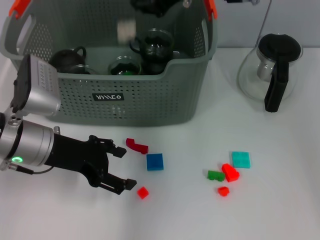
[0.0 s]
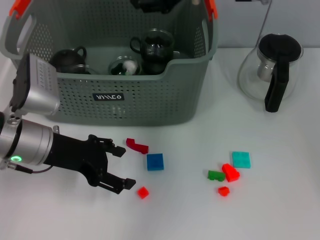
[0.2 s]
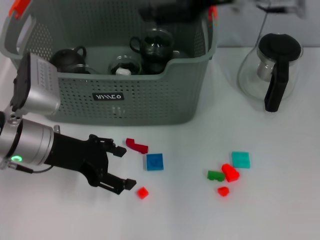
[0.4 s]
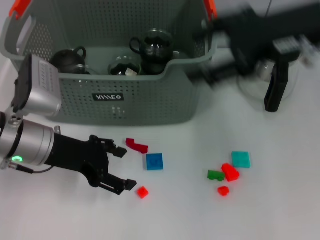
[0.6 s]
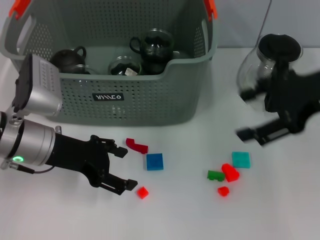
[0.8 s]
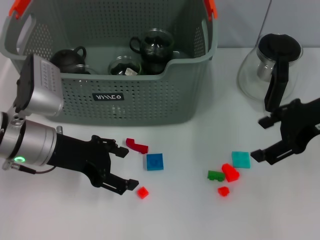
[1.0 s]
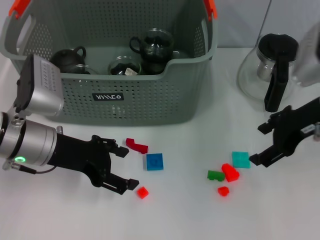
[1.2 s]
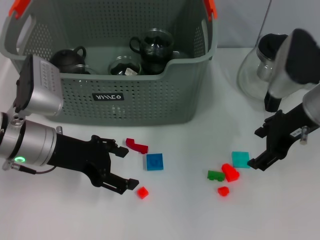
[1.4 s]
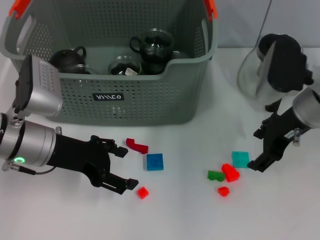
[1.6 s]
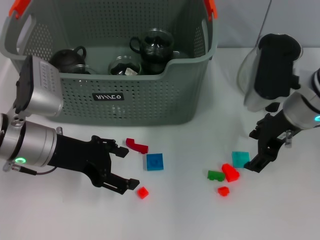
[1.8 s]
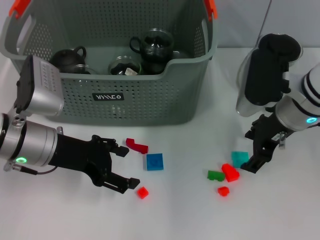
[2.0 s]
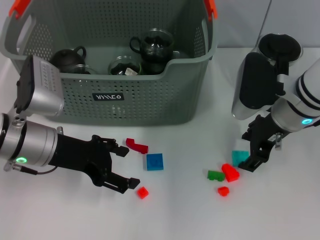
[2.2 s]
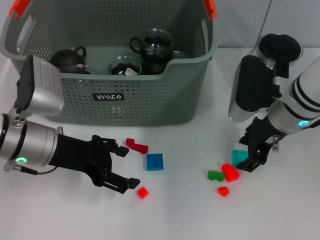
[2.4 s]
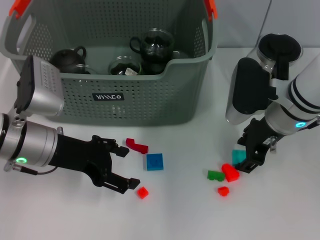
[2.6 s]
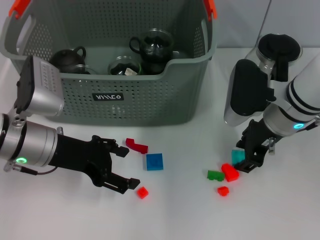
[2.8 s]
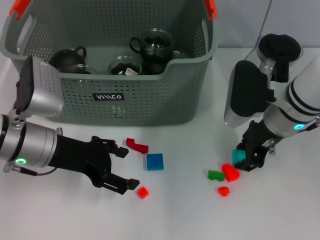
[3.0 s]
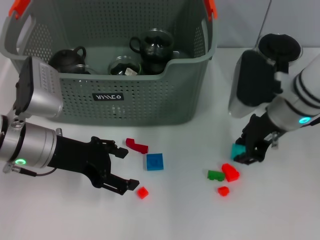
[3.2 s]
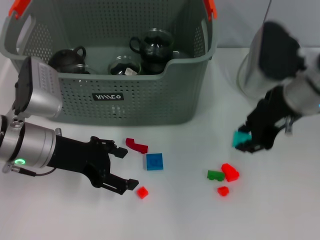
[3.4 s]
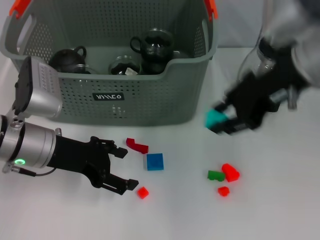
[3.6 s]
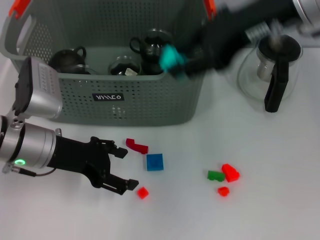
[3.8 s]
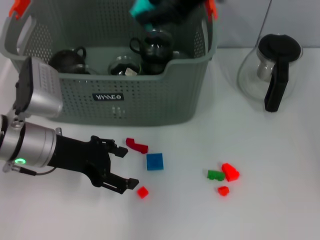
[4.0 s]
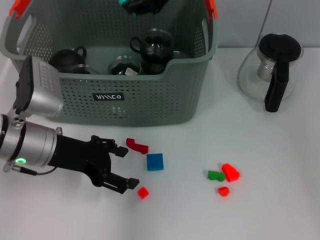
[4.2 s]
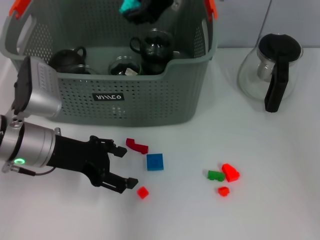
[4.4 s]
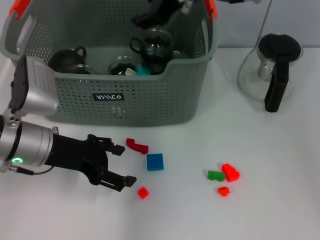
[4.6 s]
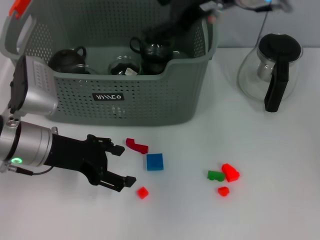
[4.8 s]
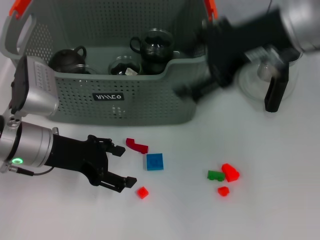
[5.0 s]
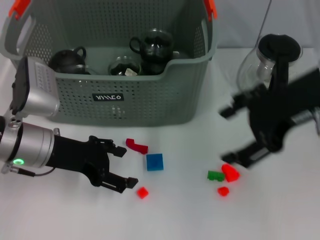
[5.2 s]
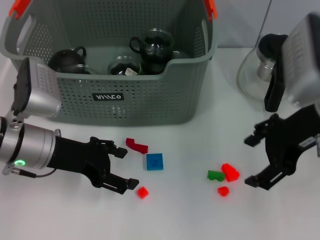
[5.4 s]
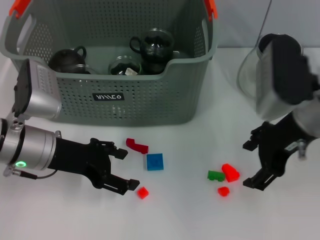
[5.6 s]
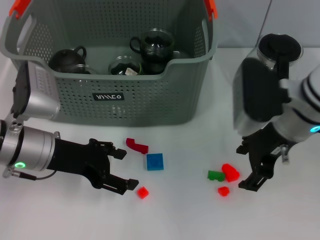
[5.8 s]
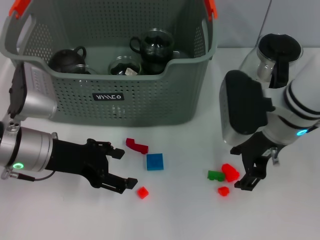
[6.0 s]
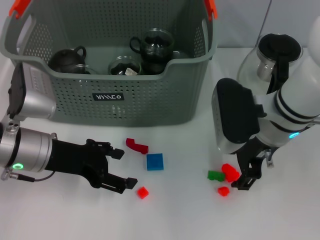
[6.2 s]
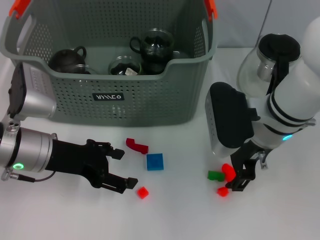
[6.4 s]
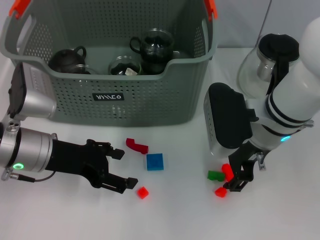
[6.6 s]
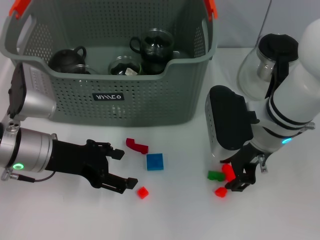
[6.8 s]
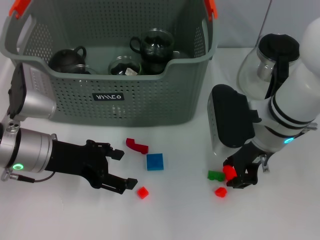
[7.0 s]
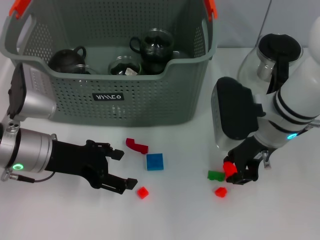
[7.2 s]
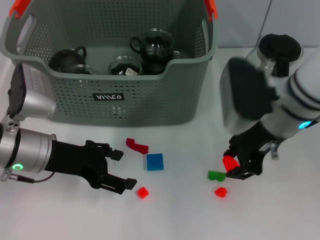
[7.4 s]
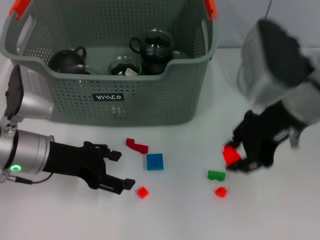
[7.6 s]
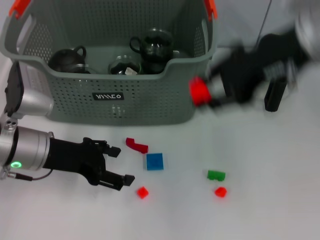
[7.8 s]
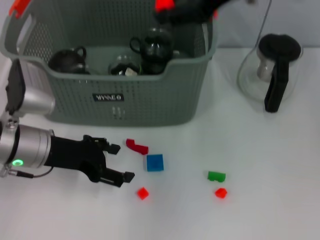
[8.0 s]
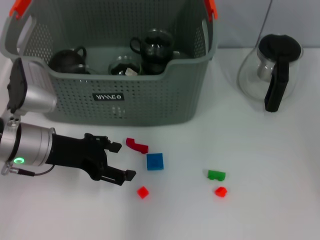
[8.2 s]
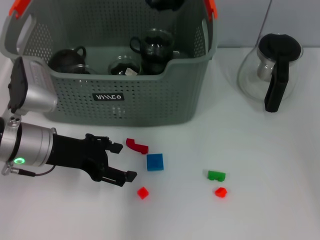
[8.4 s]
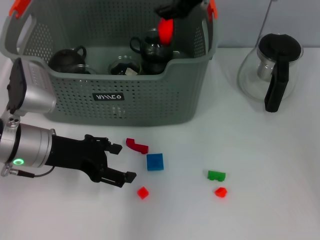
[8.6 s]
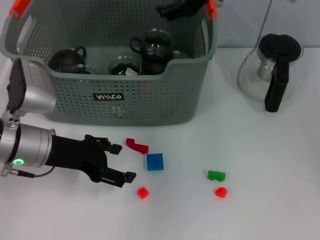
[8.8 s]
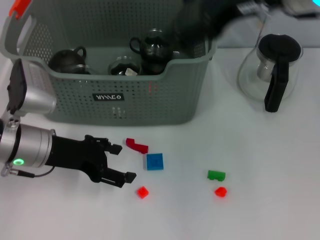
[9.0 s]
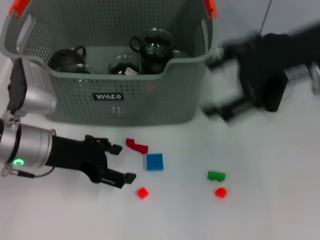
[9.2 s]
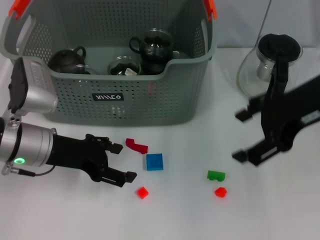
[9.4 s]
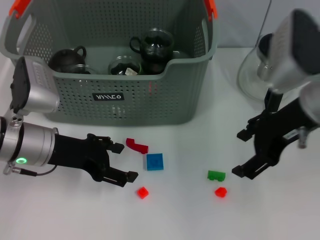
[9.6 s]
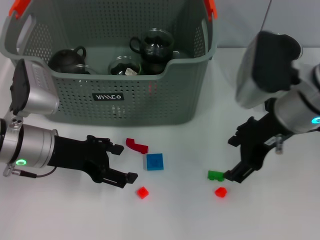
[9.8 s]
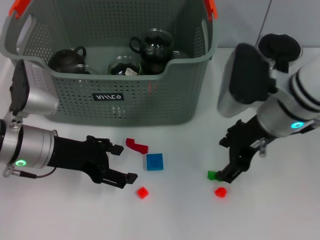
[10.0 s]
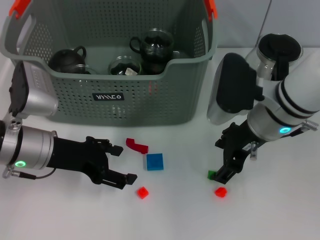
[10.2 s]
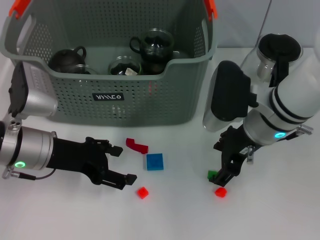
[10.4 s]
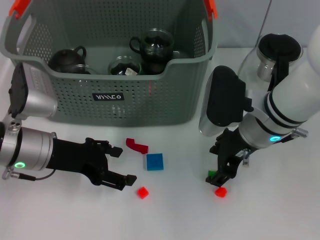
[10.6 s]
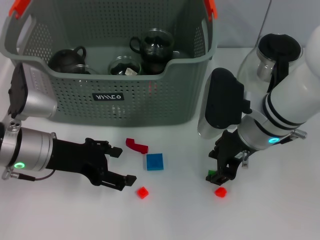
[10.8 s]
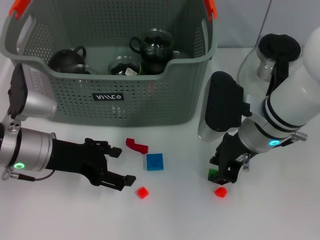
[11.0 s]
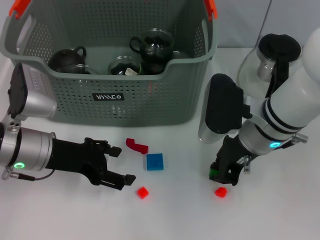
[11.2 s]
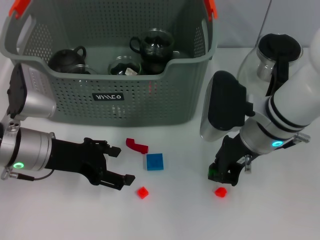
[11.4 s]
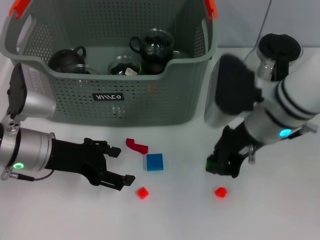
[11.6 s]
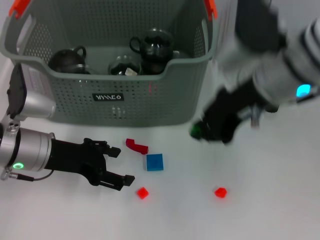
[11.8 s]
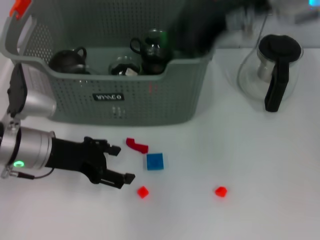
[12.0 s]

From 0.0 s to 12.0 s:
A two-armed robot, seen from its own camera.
Task of the whole recording: pick up the teacup on the table and place it into the storage bin, pick up the block on the table and place it into the storage bin.
Step, from 0.2 s to 2.8 s: Grasp the light blue block with right gripper.
Step, from 3.0 s to 4.8 s: Place the light blue block in the storage box with right gripper.
Step, from 5.0 s to 6.6 s: Grasp the orange block with right gripper.
Step, from 7.0 s to 8.4 s: Place the orange block in the storage box with right gripper.
Step, from 8.6 s to 11.2 s: Grasp the green block with right gripper.
From 0.0 s to 1.6 s: The right gripper is displaced downward, to the right and backward by some 20 cm, and opens up.
From 1.6 s to 3.0 s: The grippers stay close to where they were, moving slightly.
From 3.0 s to 4.4 s: The right gripper travels upward and to the left by roughly 20 cm.
From 4.4 s to 6.0 s: The right gripper travels downward, to the right and backward by about 20 cm, and opens its fingers.
From 6.0 s to 7.6 s: The right gripper travels upward by some 10 cm, and closes its fingers.
From 7.6 s to 9.0 s: The right gripper goes roughly 10 cm upward, travels forward and back again, some 10 cm each way, and opens up.
From 9.0 s to 10.4 s: The right gripper heads downward, covering about 15 cm.
From 10.4 s to 12.0 s: The right gripper travels upward by about 20 cm, and closes its fingers.

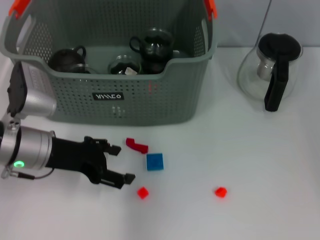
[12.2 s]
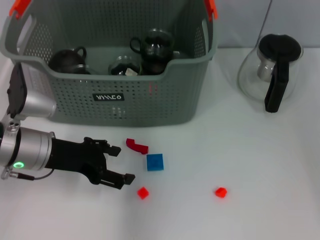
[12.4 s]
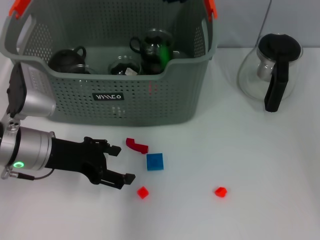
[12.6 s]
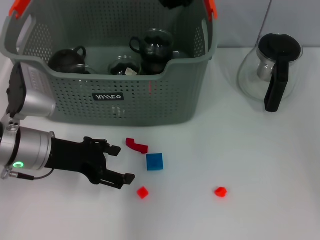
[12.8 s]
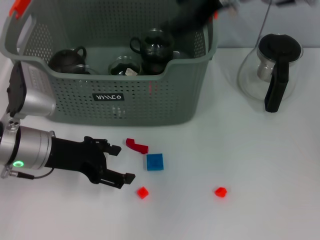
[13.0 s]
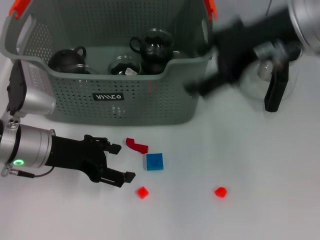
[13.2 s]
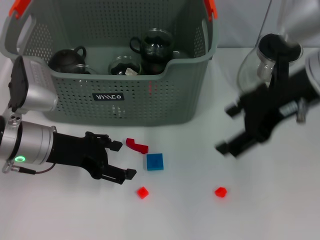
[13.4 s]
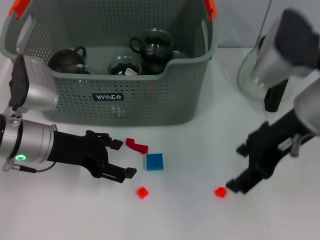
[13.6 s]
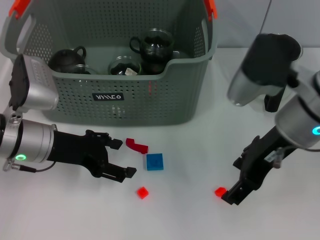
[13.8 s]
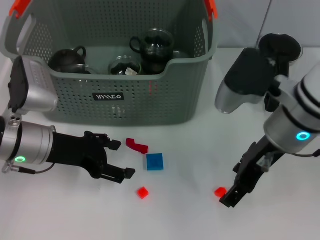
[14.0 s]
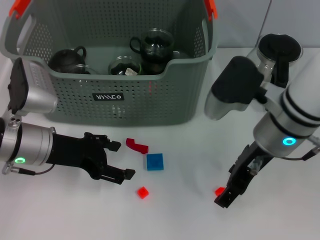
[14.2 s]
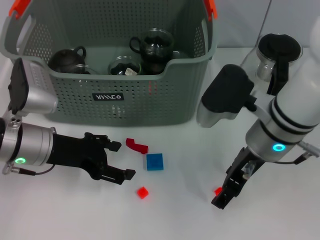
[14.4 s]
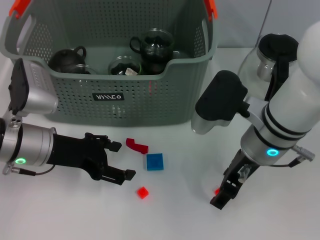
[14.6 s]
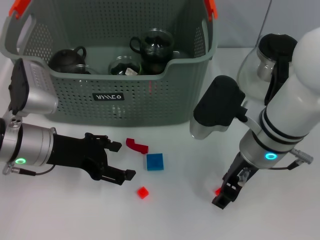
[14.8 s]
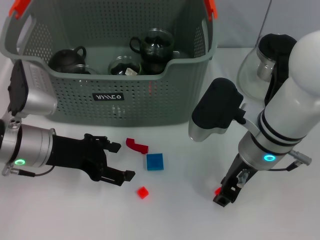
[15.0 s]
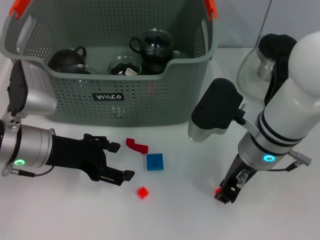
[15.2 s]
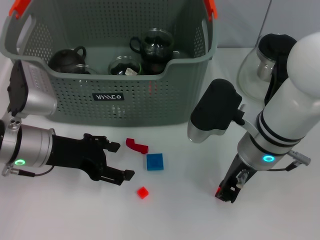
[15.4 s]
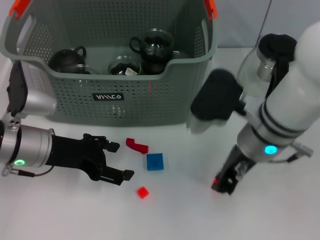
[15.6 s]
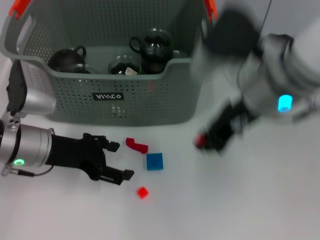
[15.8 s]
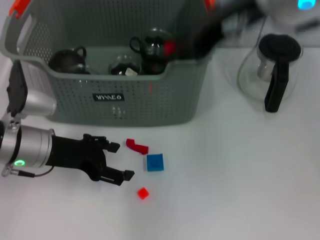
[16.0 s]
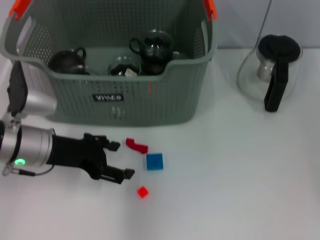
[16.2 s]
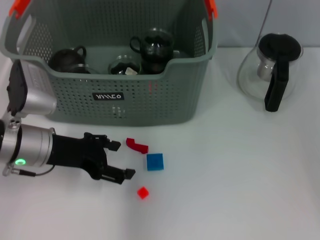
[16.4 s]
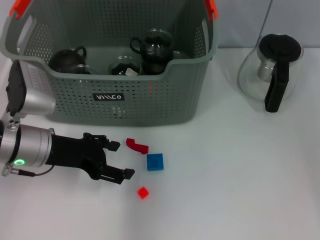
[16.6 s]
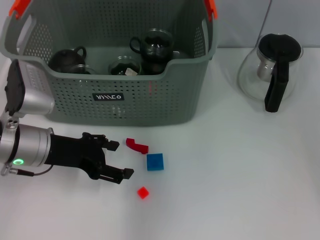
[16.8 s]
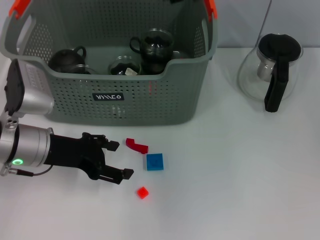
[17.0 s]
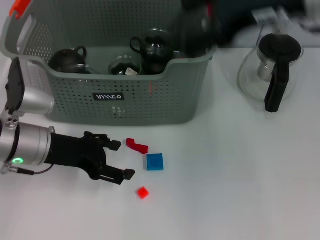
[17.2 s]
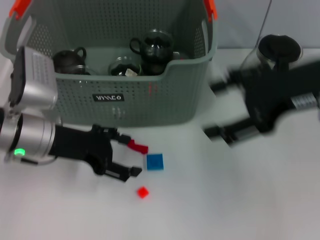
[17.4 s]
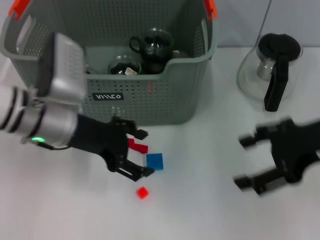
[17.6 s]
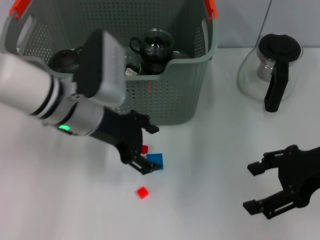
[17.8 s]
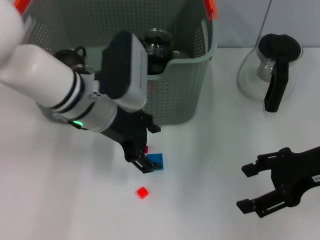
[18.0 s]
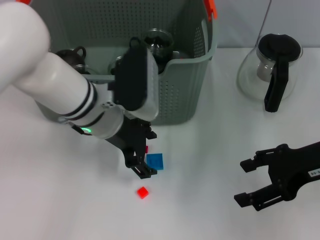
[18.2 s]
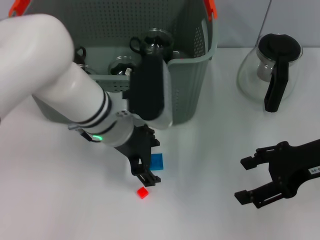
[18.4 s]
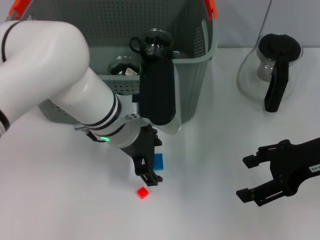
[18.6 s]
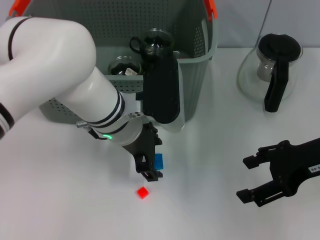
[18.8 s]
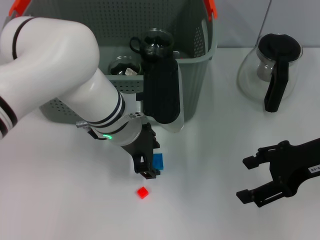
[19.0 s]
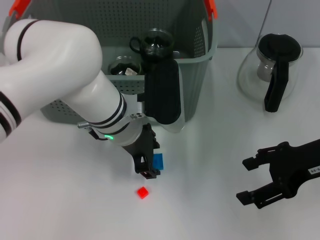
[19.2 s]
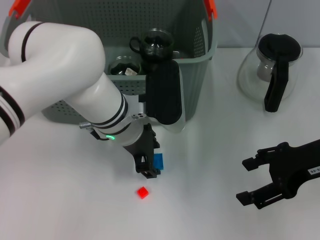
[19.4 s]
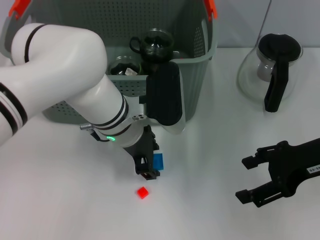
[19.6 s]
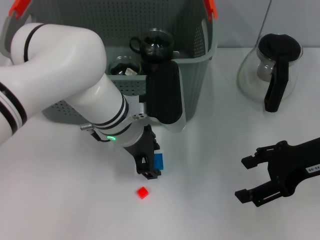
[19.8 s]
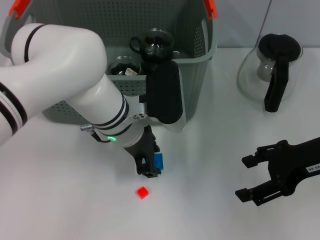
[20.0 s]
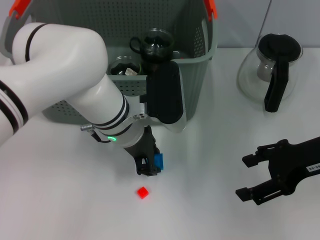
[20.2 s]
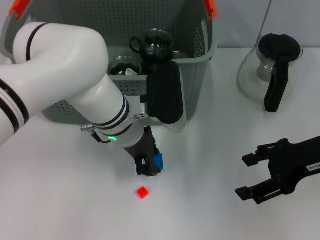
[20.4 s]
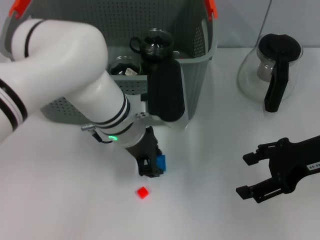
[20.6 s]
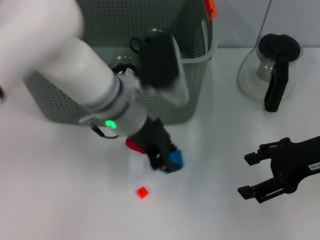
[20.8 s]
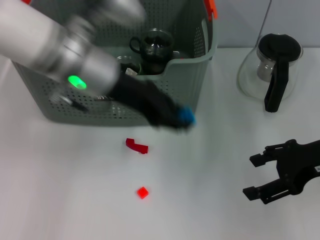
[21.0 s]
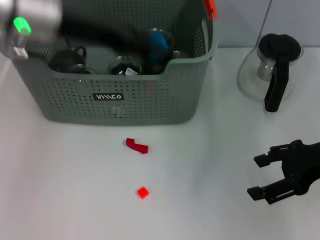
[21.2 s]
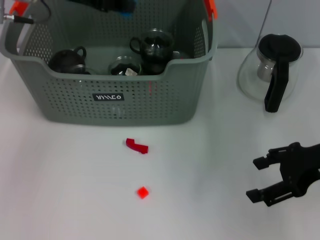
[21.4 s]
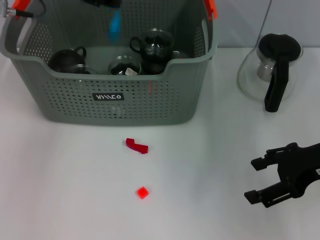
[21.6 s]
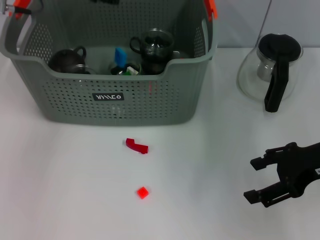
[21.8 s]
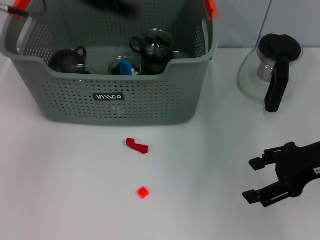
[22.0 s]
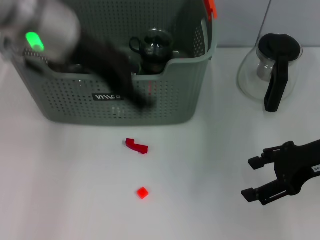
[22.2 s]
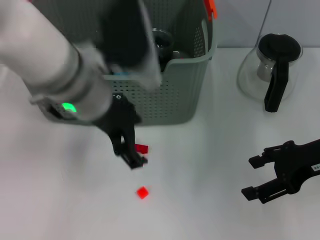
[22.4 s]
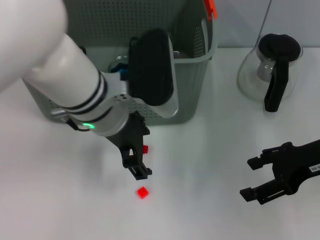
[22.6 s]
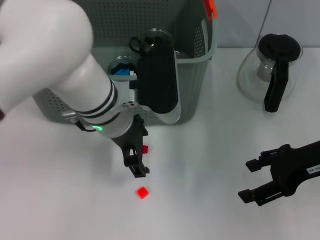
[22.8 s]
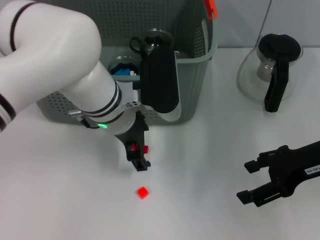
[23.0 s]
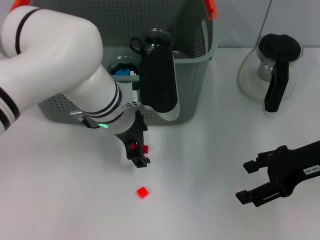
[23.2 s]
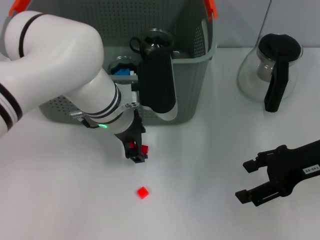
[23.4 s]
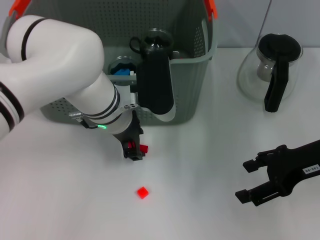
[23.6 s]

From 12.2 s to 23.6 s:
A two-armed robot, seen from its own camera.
Task of the whole recording: pick up the teacup on the table and place it into the storage bin, pick up the block on the table and place it into the storage bin.
Step, from 12.2 s to 15.4 s: Grasp the orange block with right gripper.
Step, from 15.8 s to 16.4 s: Place the orange block in the storage box with right gripper.
Step, from 16.6 s to 20.2 s: Grasp the dark blue block with left gripper.
Step, from 20.6 s to 22.0 s: Place the dark blue block in the storage box with left gripper.
From 12.2 s to 13.6 s: The right gripper moves downward, backward and to the right, some 15 cm, and opens up.
From 13.6 s to 15.0 s: The right gripper is displaced downward and to the left by approximately 10 cm.
From 15.0 s to 16.4 s: The right gripper moves upward and forward, about 25 cm, and closes up.
From 16.4 s to 17.8 s: The left gripper travels to the right by about 10 cm. Meanwhile the right gripper shifts roughly 25 cm to the right, backward and downward, and opens its fingers.
From 17.8 s to 19.4 s: The left gripper shifts some 5 cm to the right.
From 20.8 s to 22.2 s: The left gripper moves upward and to the left, roughly 15 cm, and opens up.
From 22.2 s to 23.6 s: The left gripper travels downward and to the right by roughly 15 cm.
